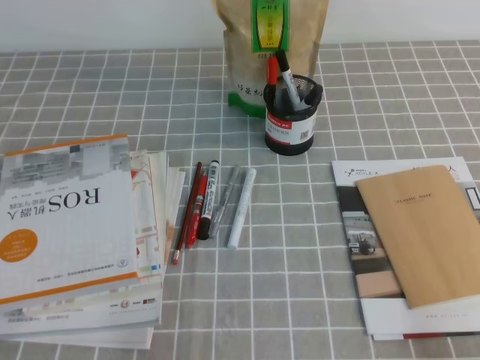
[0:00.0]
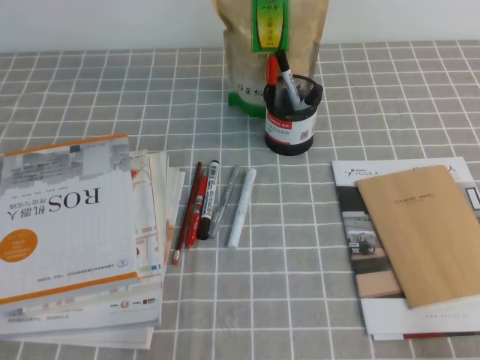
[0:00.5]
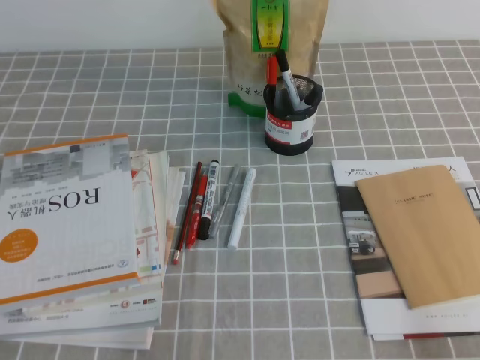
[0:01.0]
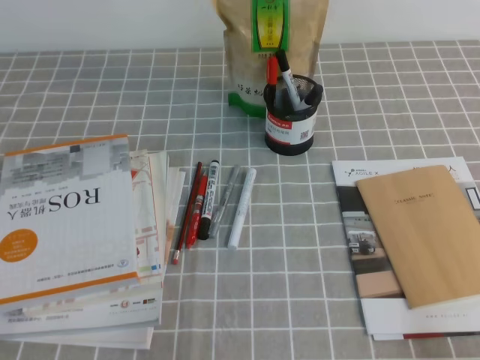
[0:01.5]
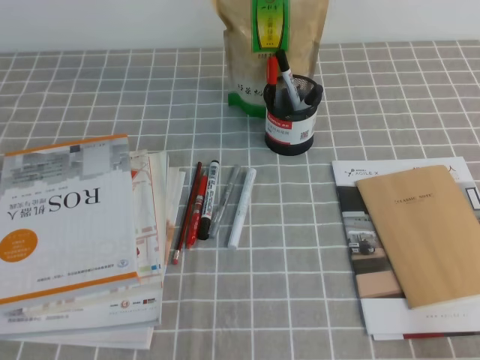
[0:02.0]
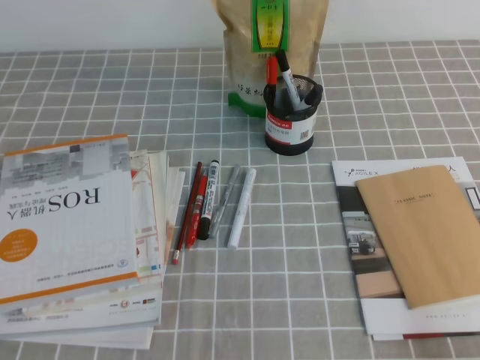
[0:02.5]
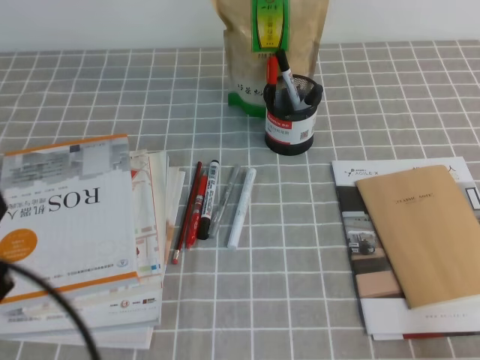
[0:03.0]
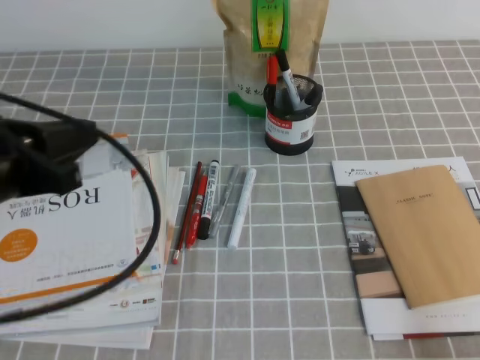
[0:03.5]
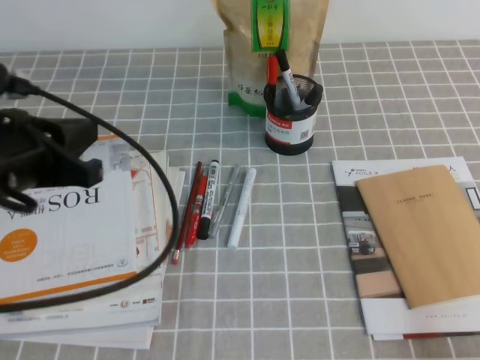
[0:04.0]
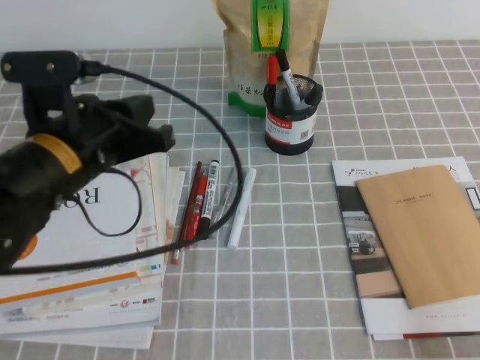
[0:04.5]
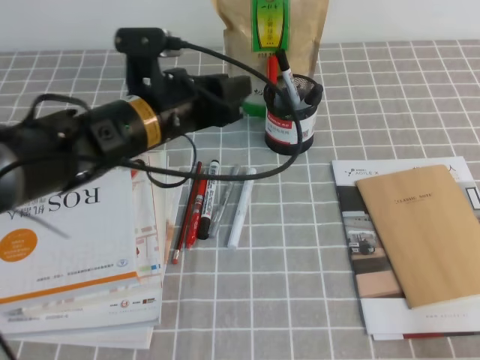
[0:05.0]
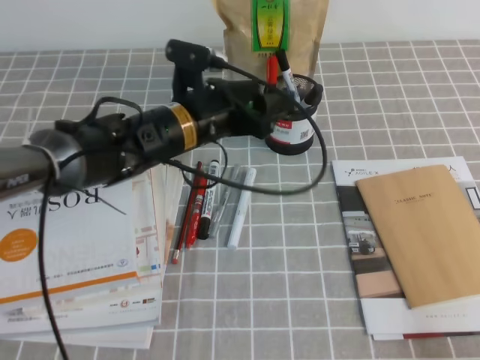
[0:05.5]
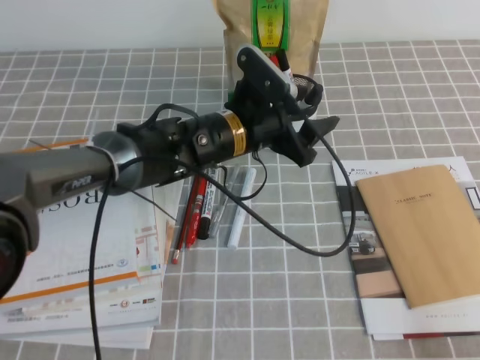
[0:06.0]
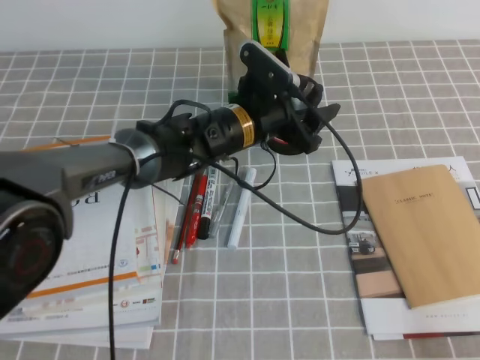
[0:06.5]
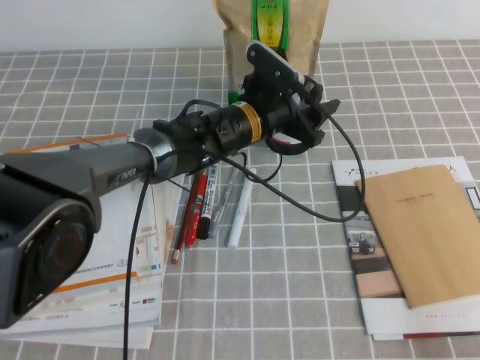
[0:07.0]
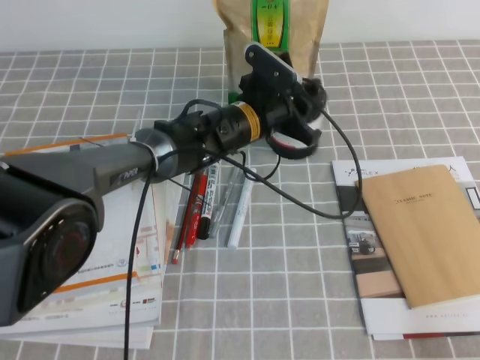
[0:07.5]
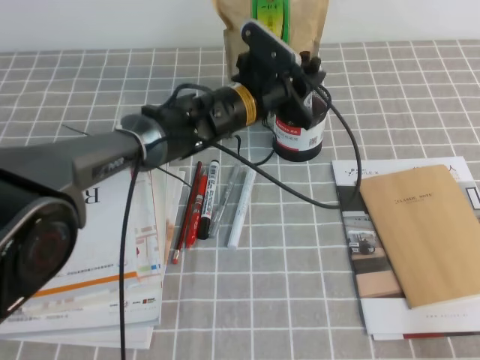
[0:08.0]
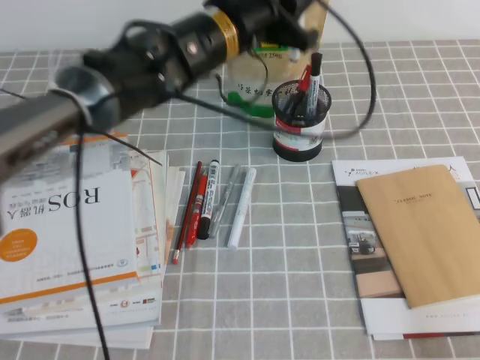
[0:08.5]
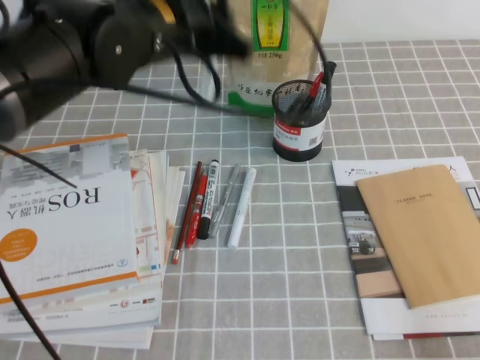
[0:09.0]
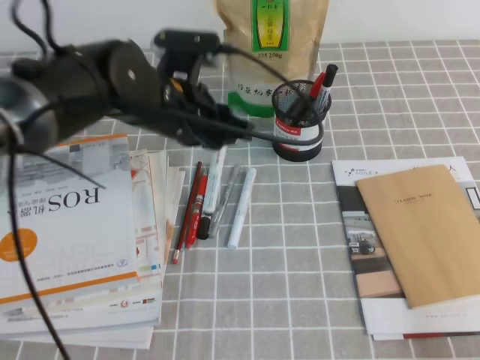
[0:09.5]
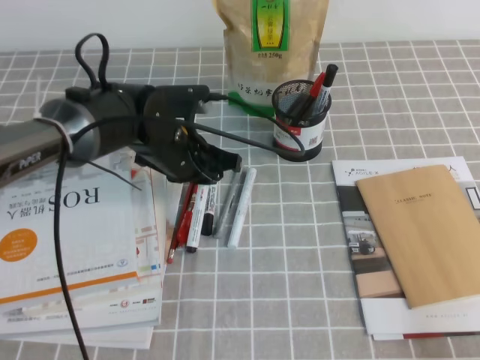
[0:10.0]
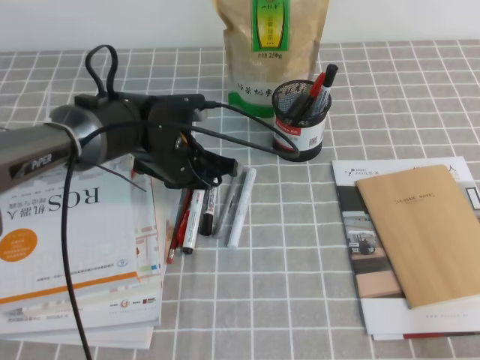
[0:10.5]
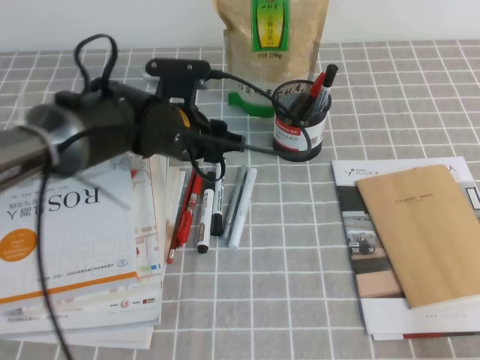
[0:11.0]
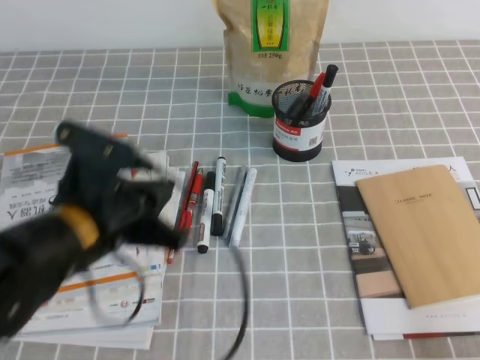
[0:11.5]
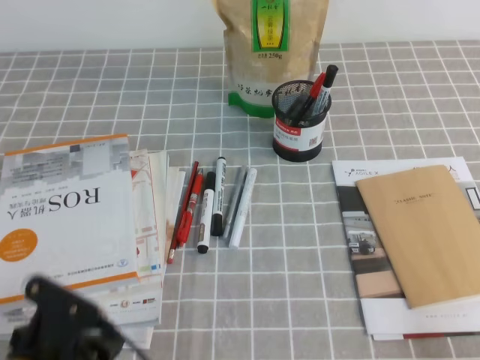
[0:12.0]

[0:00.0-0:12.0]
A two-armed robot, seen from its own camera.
0:02.0 to 0:04.0: The left gripper heads forward and upward, covering approximately 20 cm.
0:04.0 to 0:06.0: The left gripper goes some 25 cm to the right, forward and downward, and opens up.
0:06.0 to 0:08.0: The left gripper heads forward, covering approximately 5 cm, and closes its fingers.
0:08.0 to 0:10.0: The left gripper is displaced to the left and backward by about 10 cm, and travels upward and back again, roughly 15 cm each way.
0:10.0 to 0:12.0: The left gripper goes approximately 25 cm backward and to the left.

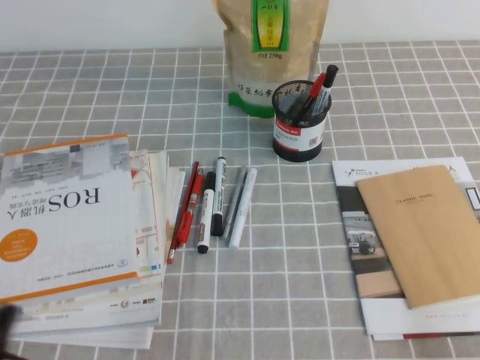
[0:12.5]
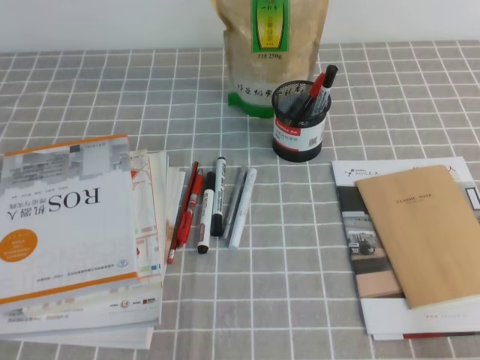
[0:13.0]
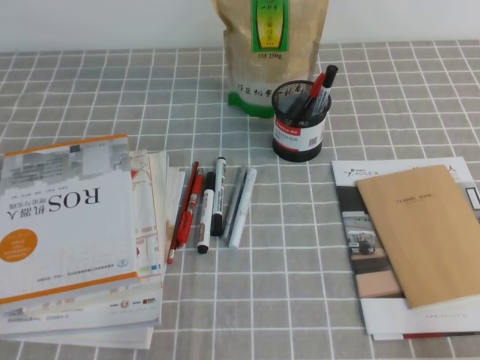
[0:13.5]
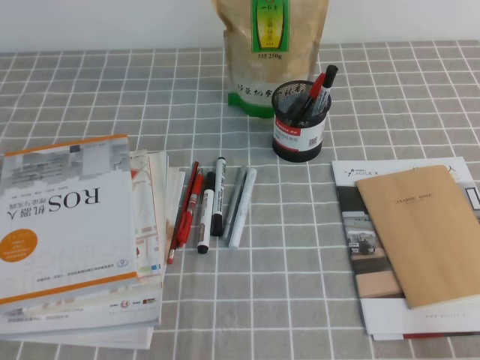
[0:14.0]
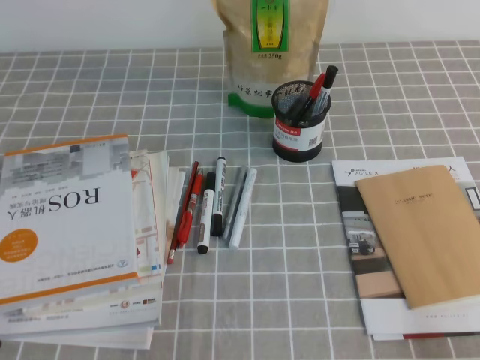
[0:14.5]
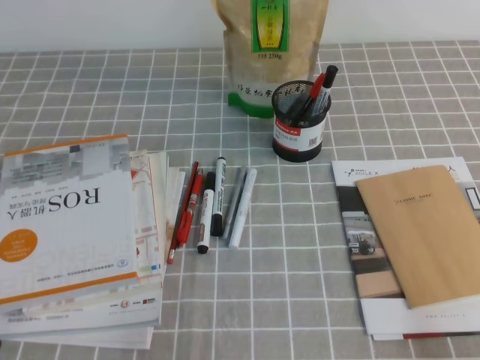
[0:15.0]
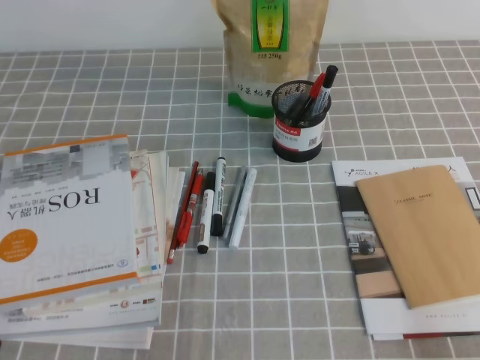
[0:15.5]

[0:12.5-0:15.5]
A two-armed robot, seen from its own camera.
0:14.0 to 0:15.5: Both grippers stay about where they are.

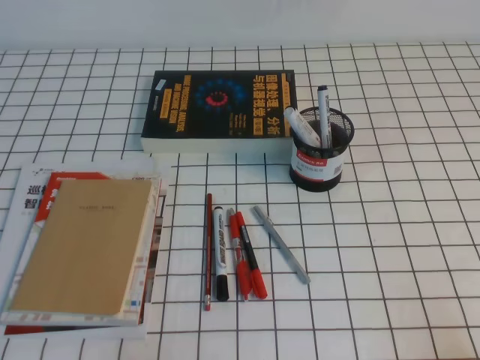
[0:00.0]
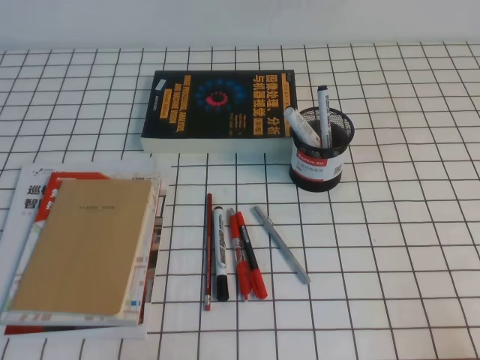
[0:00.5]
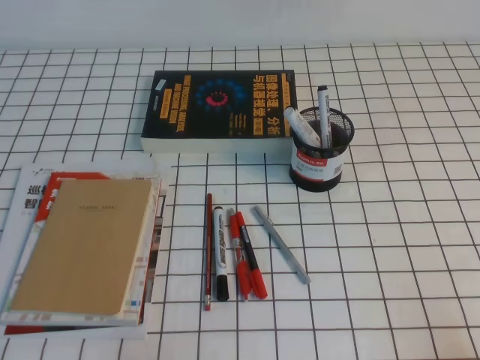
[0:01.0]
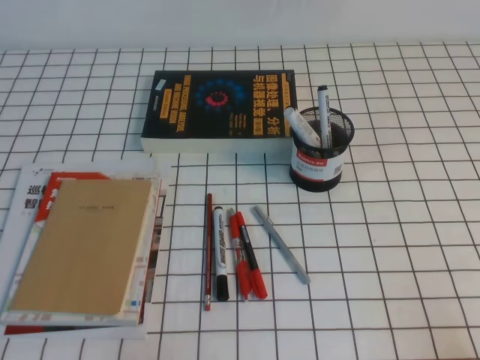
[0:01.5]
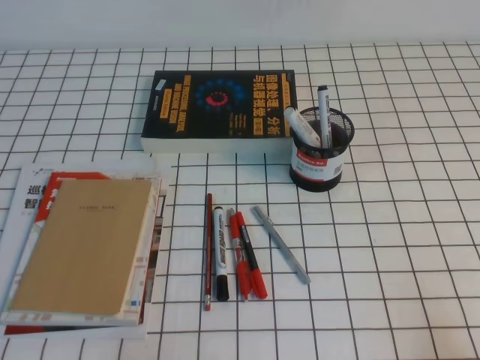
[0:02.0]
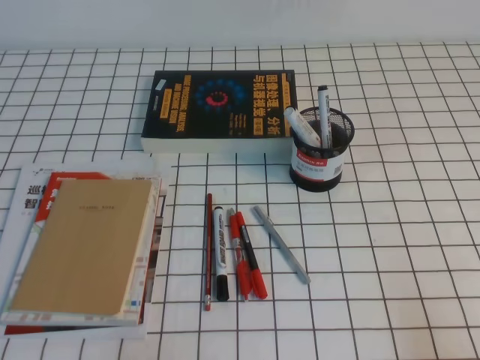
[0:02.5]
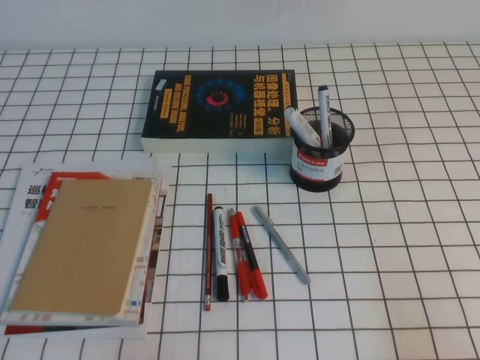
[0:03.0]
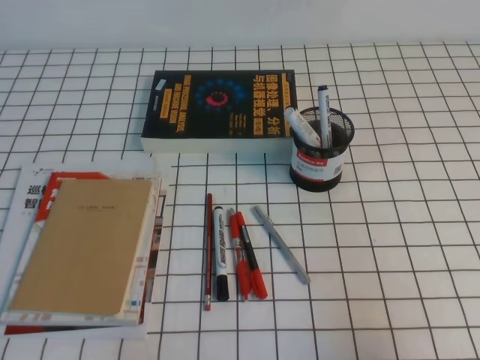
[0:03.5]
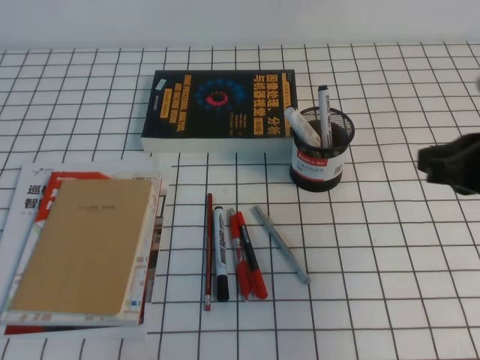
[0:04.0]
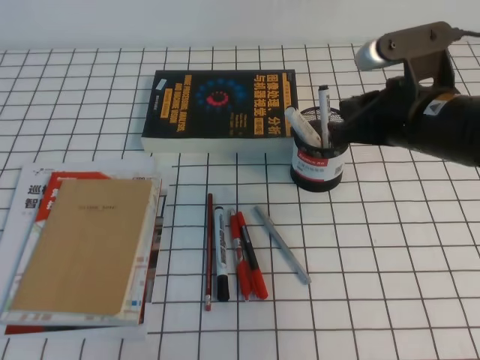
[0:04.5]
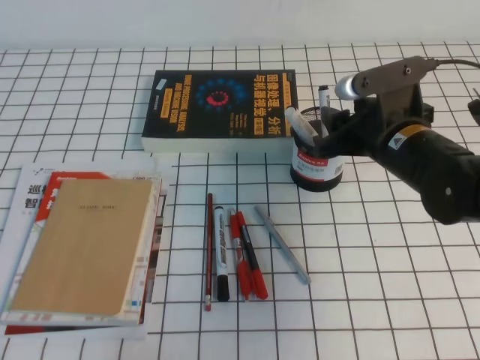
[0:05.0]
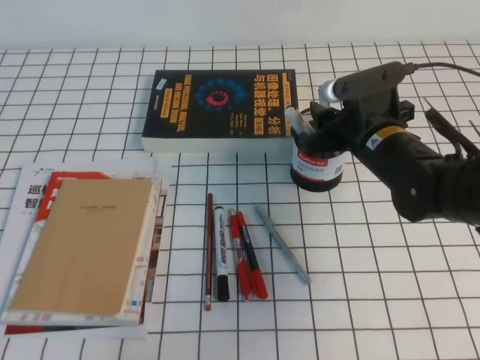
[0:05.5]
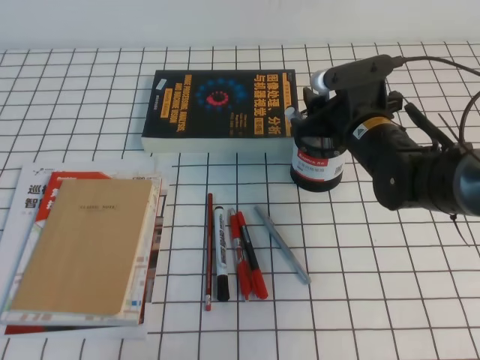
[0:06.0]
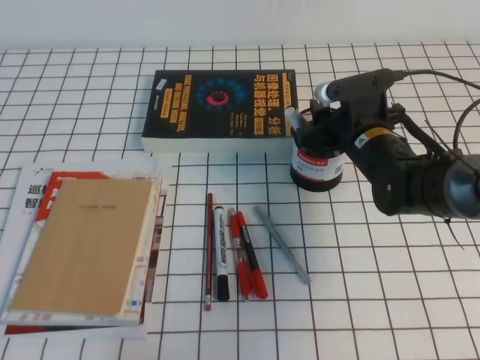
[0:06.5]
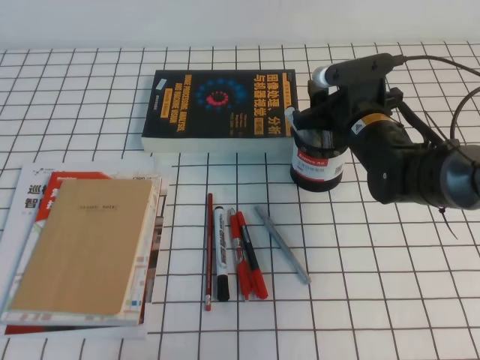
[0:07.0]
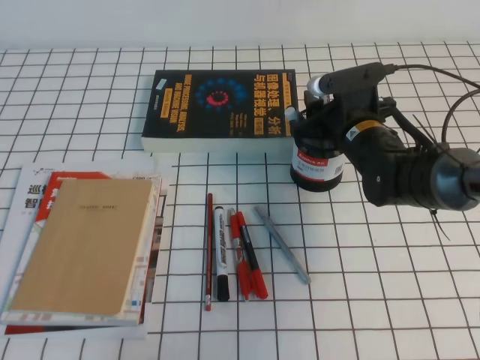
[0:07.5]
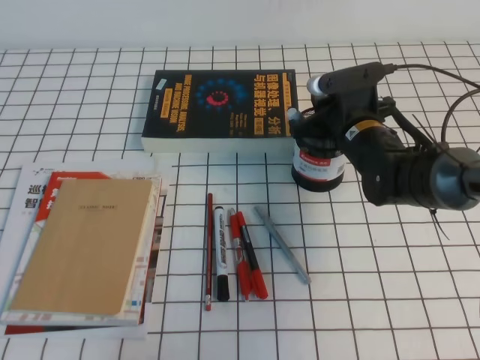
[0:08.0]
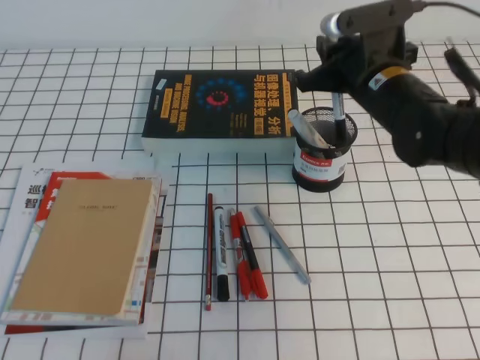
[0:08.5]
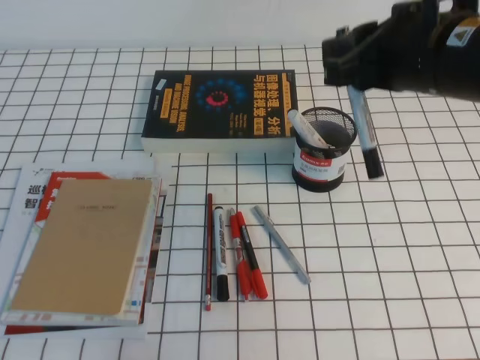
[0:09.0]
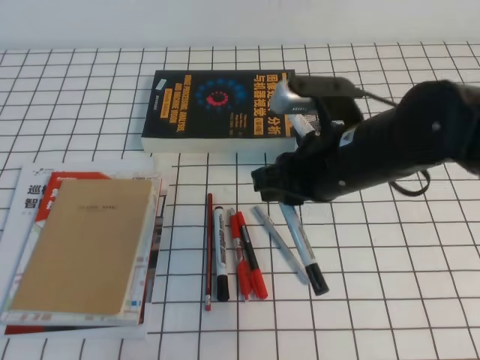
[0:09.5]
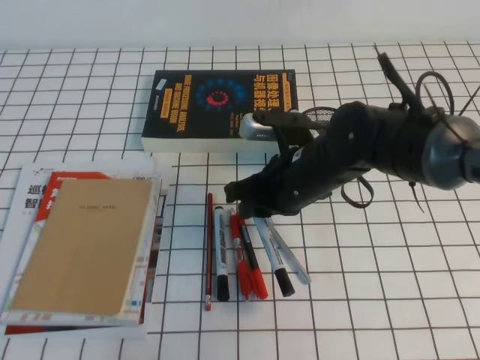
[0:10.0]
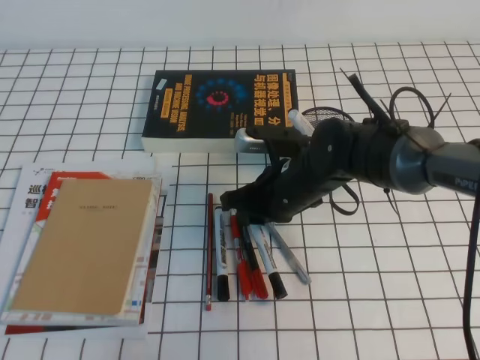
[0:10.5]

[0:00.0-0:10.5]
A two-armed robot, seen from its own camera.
0:02.0 to 0:04.0: The right gripper heads forward, upward and to the left, covering about 20 cm.
0:04.0 to 0:06.5: The right gripper goes approximately 25 cm forward, downward and to the left, and opens up.
0:06.5 to 0:08.5: The right gripper moves upward, roughly 10 cm, and closes up.
0:08.5 to 0:10.5: The right gripper moves downward and to the left, approximately 15 cm.
